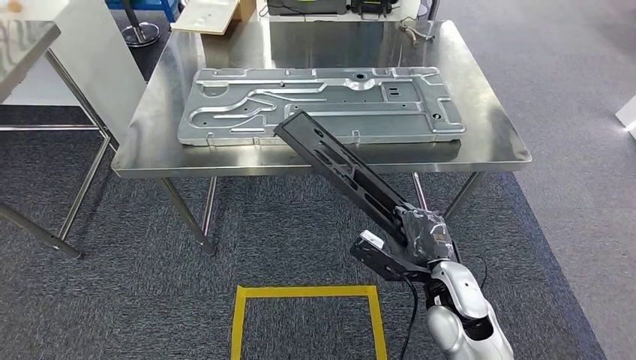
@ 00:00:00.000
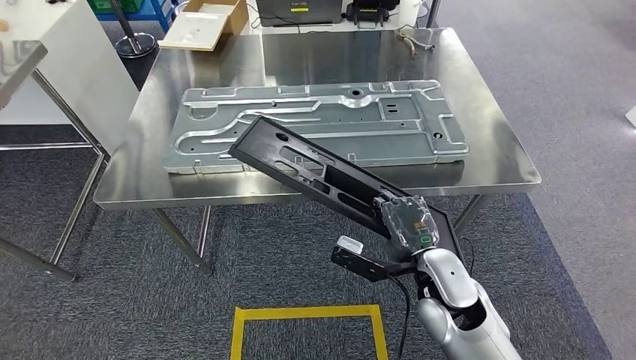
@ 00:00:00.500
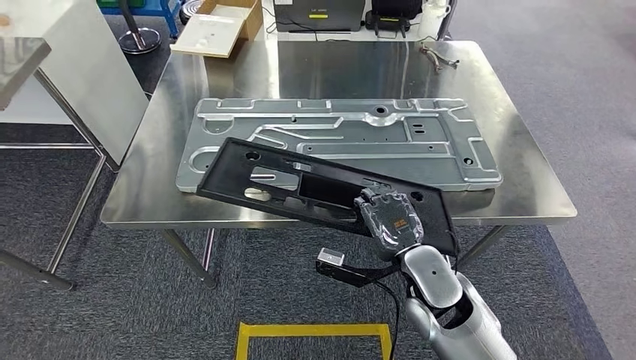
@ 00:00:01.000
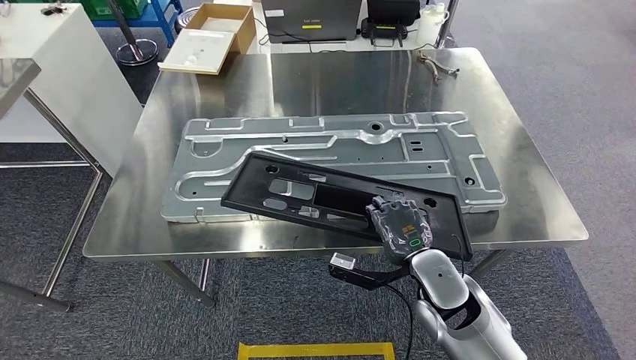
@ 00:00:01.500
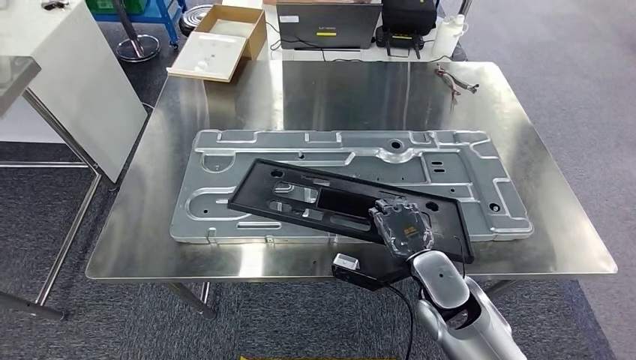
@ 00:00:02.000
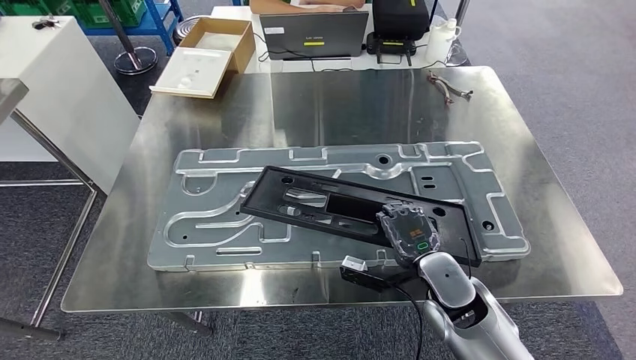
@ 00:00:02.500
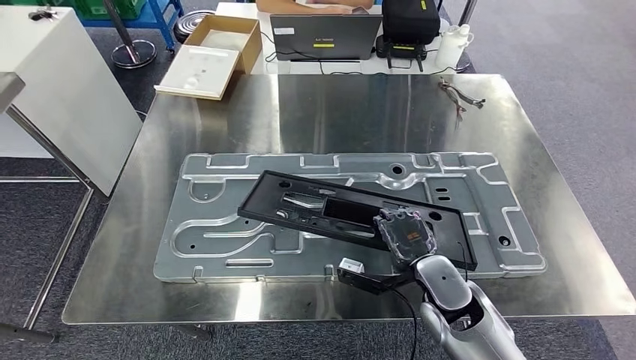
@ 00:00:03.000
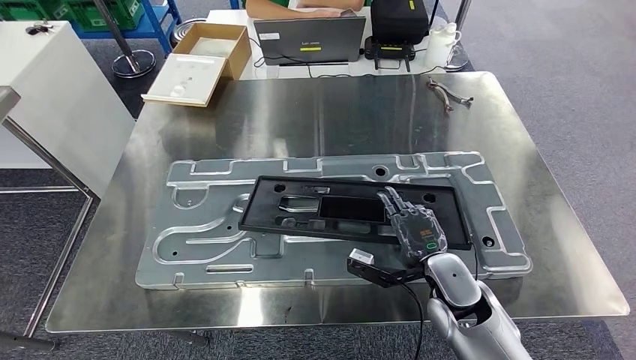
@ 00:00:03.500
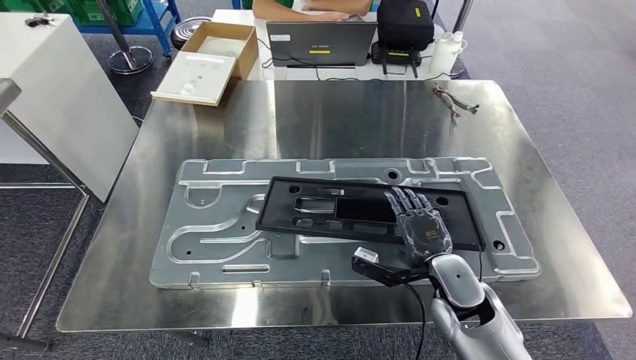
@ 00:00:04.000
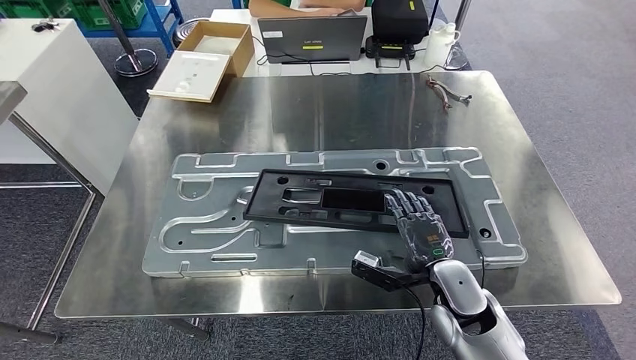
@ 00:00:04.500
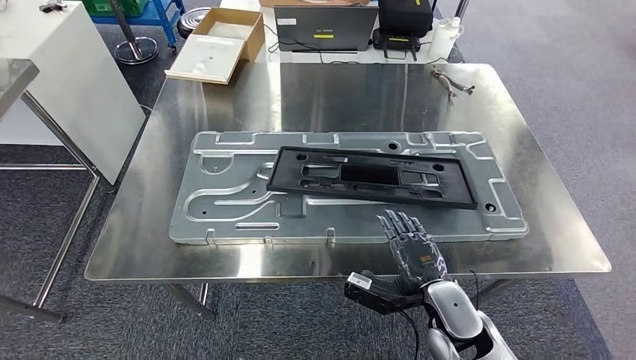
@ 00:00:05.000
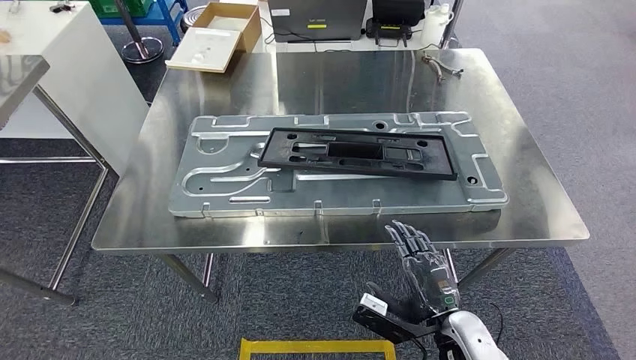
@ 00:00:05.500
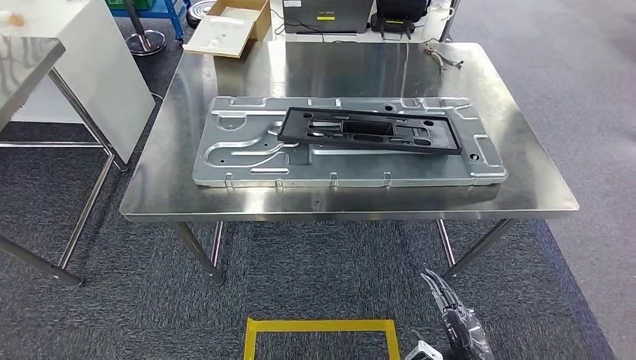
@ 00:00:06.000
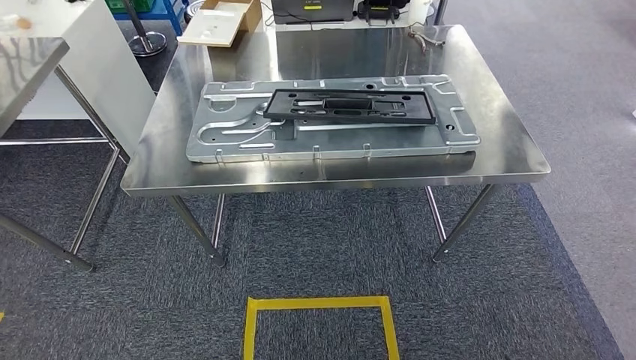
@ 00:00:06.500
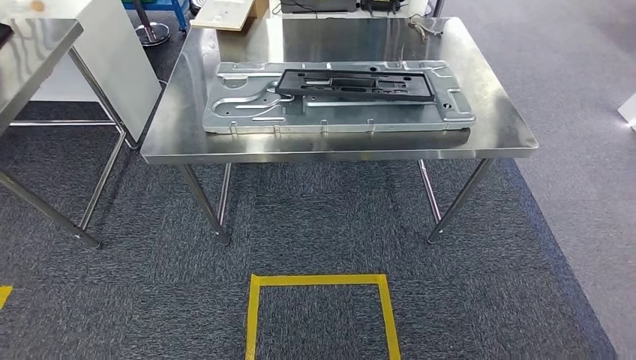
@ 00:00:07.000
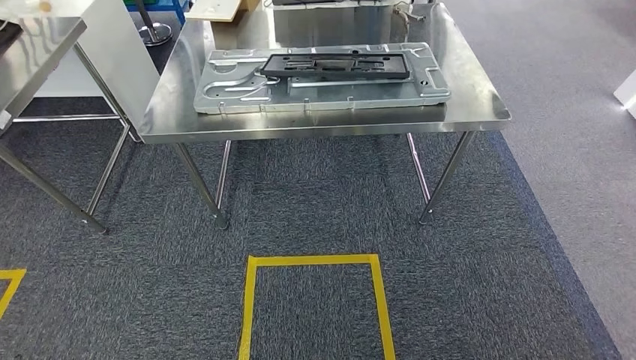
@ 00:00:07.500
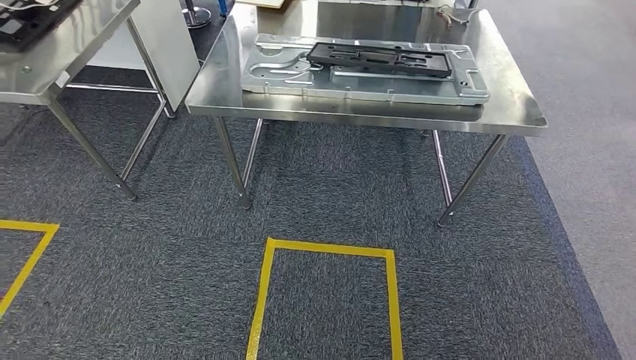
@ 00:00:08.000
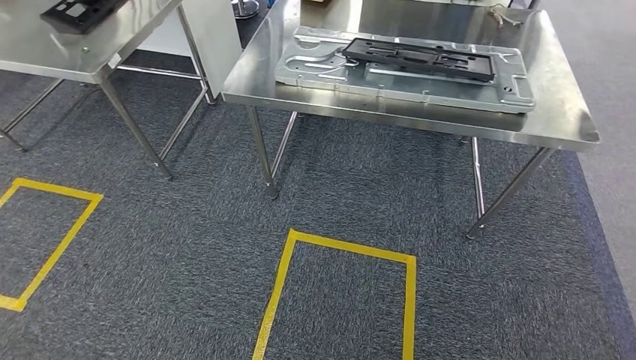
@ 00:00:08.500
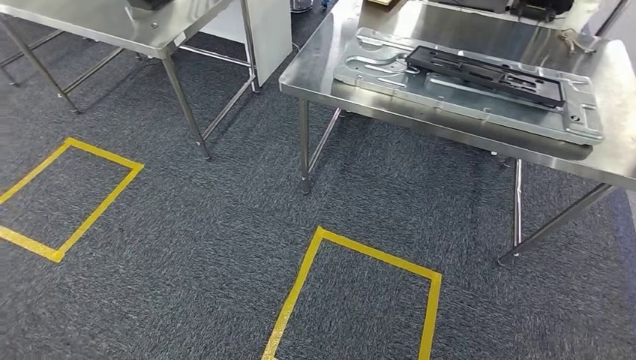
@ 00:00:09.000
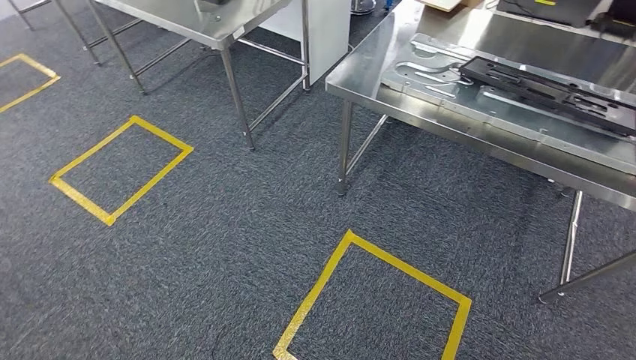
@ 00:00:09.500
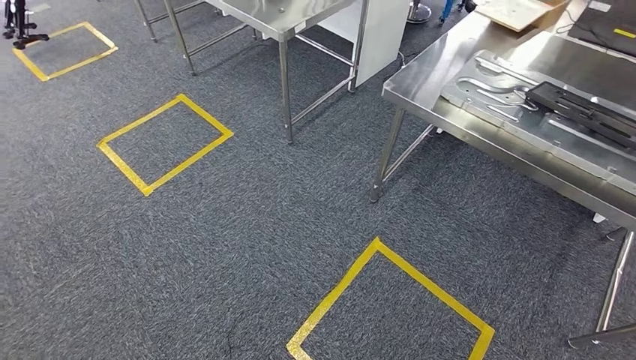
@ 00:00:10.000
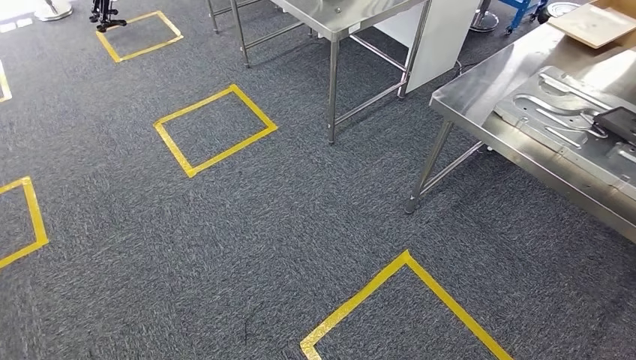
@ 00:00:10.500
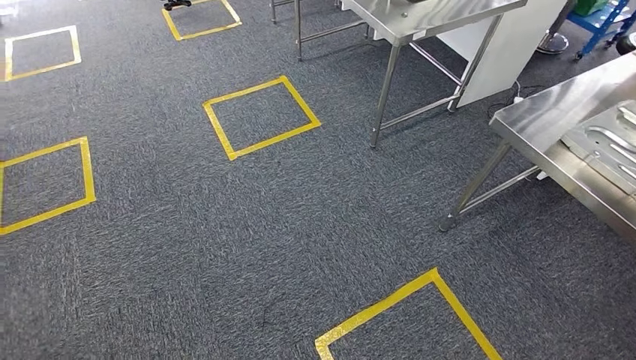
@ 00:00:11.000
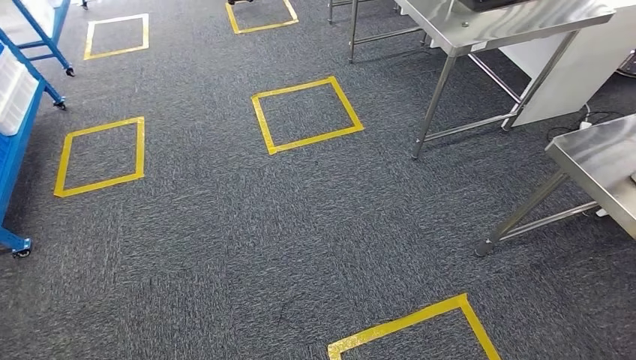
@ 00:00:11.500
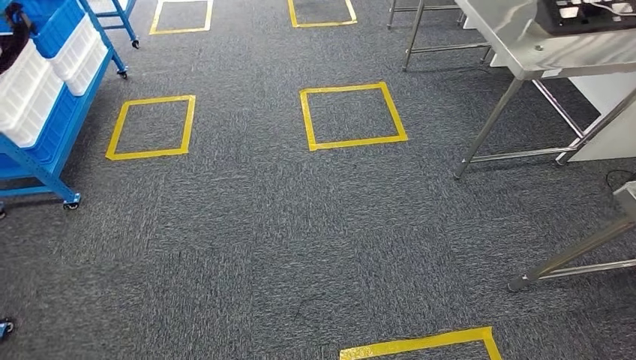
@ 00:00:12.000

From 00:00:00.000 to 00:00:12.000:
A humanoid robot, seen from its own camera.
Step, from 00:00:02.000 to 00:00:08.000: Insert the large parts into the corresponding slots on the workbench.

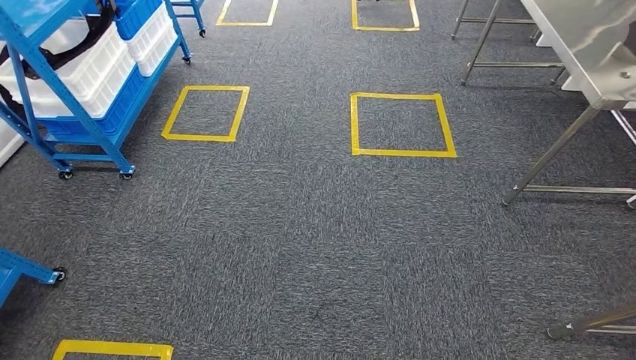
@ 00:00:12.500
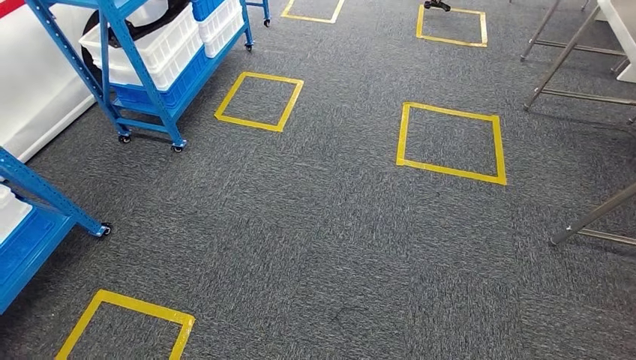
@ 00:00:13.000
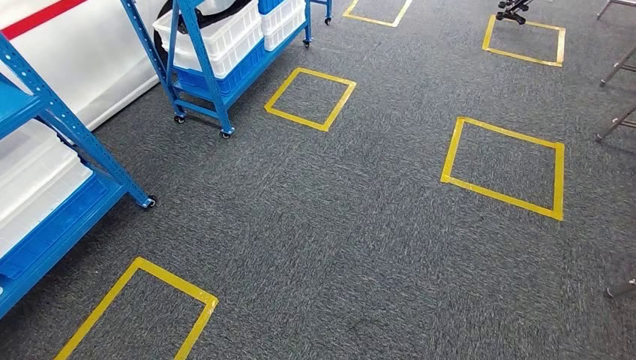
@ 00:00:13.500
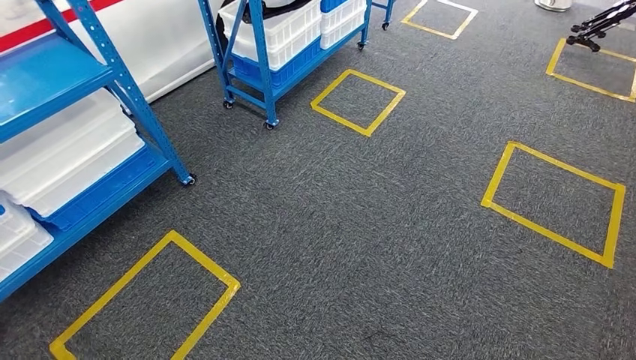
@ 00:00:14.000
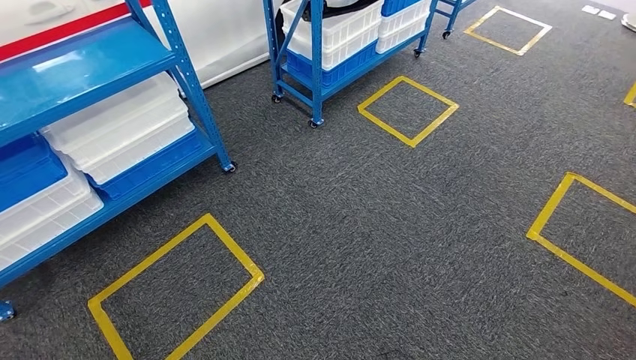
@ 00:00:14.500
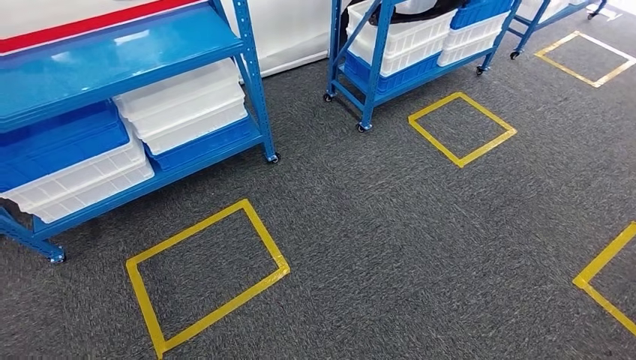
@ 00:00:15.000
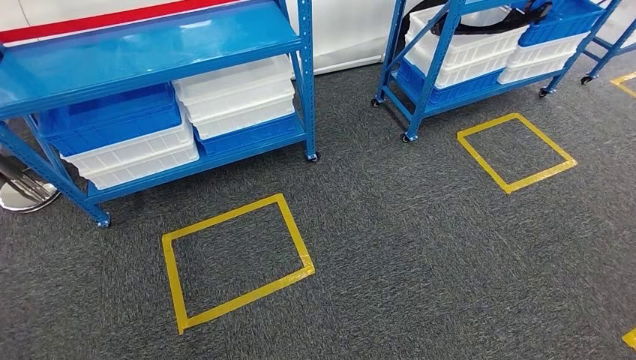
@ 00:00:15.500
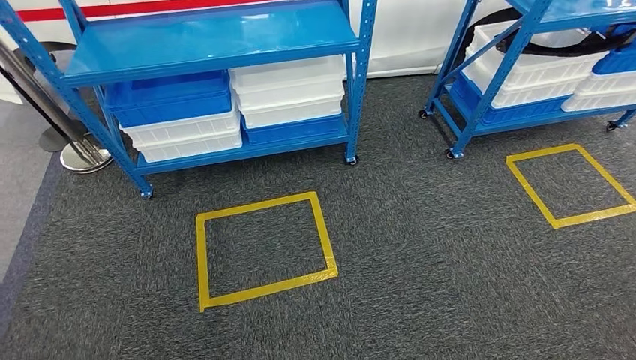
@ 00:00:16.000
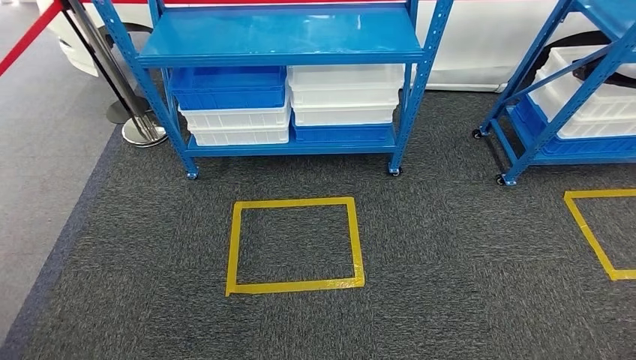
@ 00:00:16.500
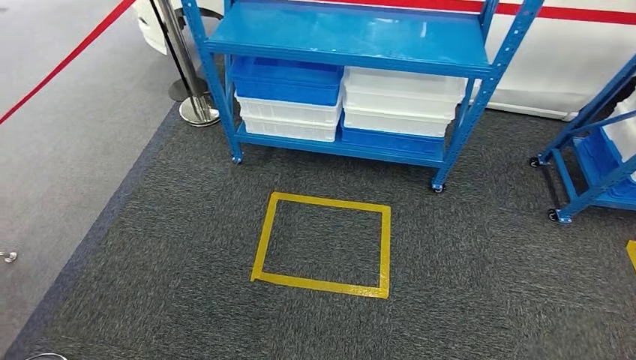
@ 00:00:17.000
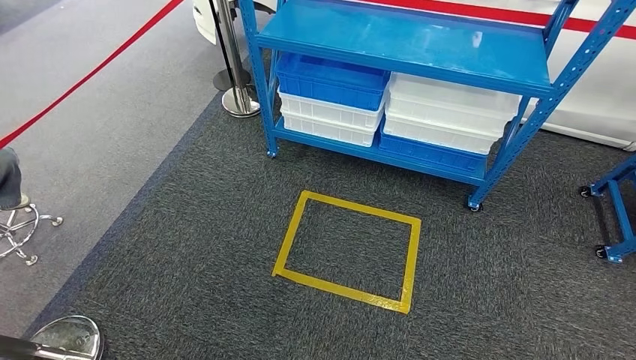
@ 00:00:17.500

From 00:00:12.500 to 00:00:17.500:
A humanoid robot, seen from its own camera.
Step, from 00:00:12.500 to 00:00:17.500: Return to the initial position at the shelf.
